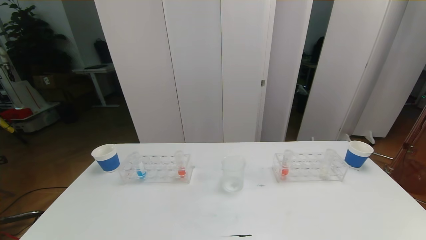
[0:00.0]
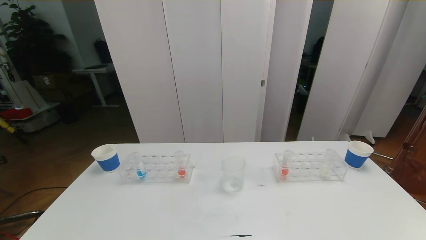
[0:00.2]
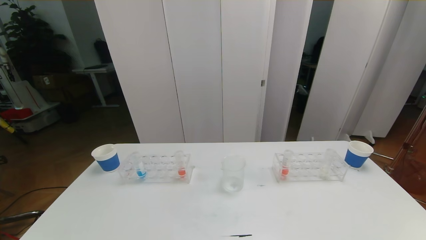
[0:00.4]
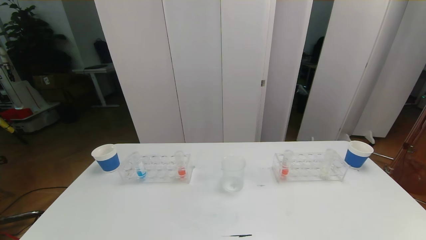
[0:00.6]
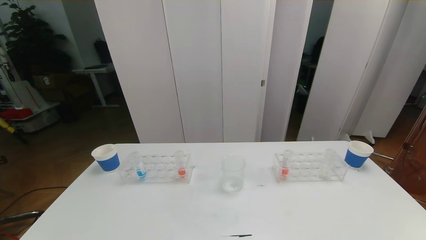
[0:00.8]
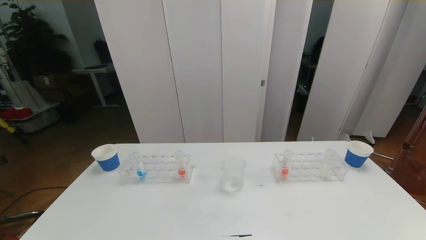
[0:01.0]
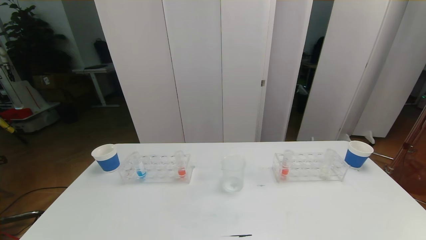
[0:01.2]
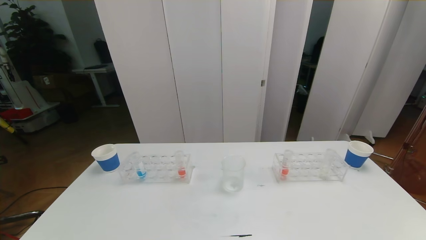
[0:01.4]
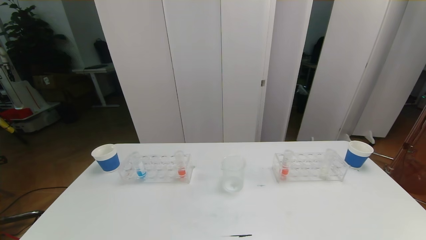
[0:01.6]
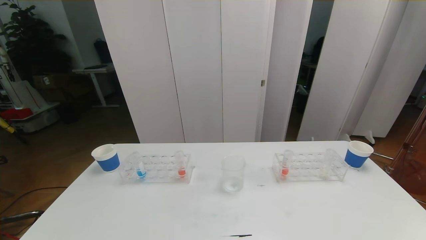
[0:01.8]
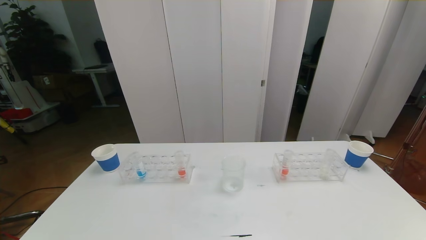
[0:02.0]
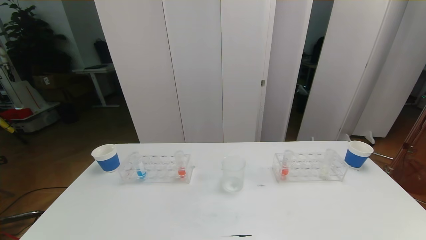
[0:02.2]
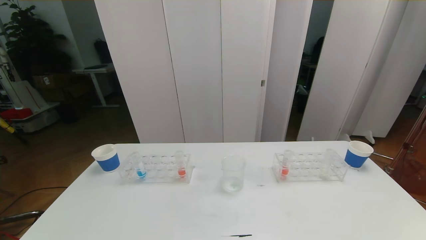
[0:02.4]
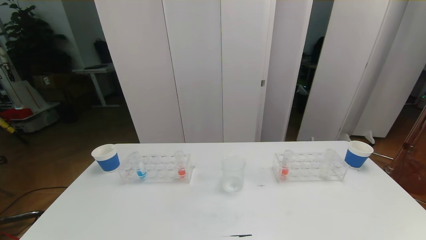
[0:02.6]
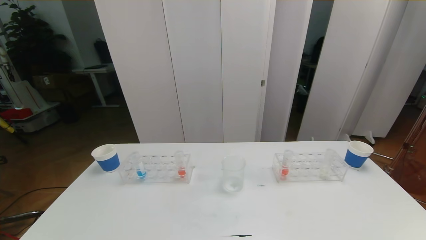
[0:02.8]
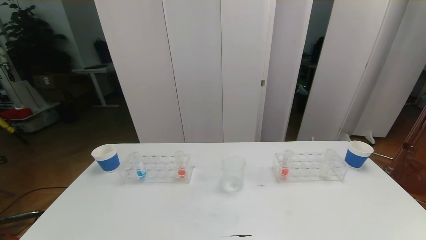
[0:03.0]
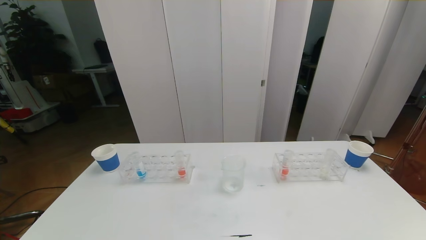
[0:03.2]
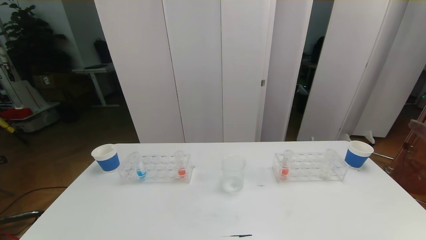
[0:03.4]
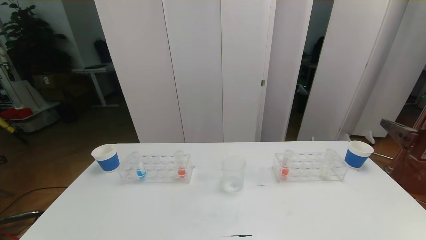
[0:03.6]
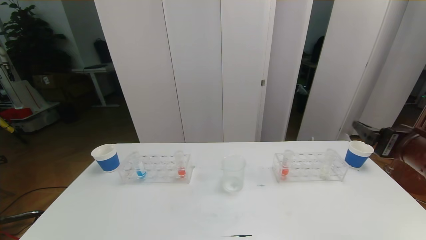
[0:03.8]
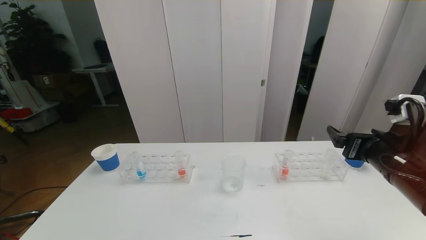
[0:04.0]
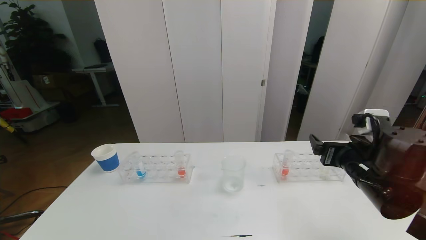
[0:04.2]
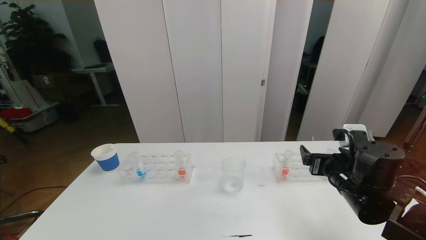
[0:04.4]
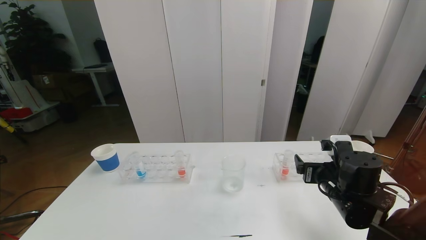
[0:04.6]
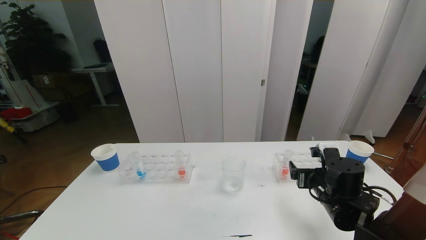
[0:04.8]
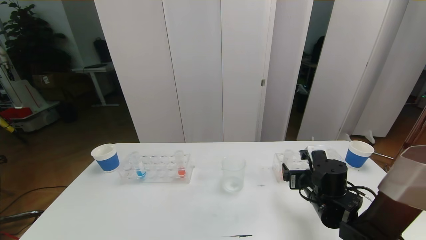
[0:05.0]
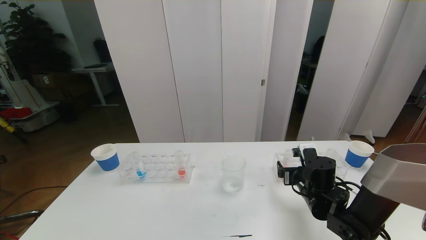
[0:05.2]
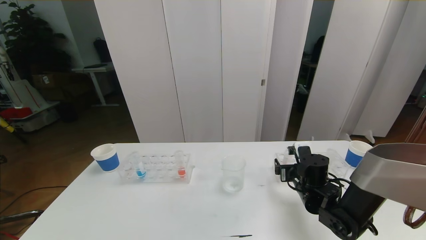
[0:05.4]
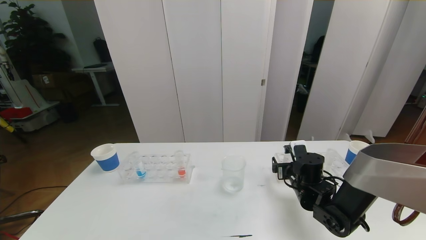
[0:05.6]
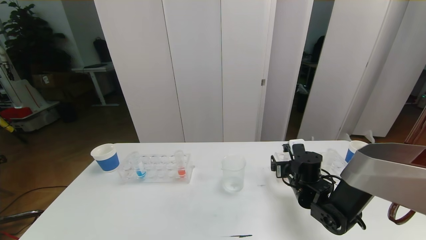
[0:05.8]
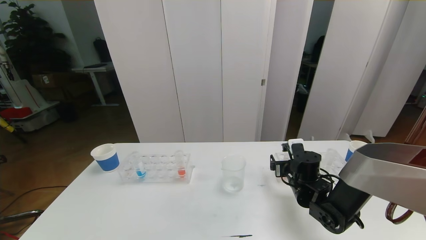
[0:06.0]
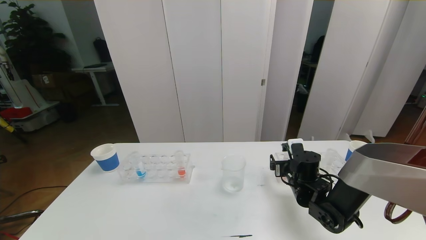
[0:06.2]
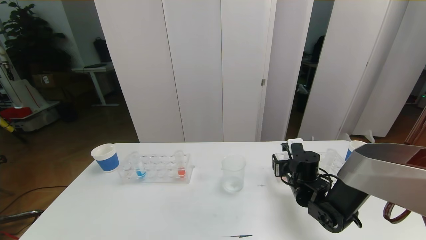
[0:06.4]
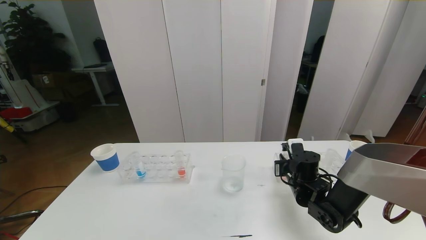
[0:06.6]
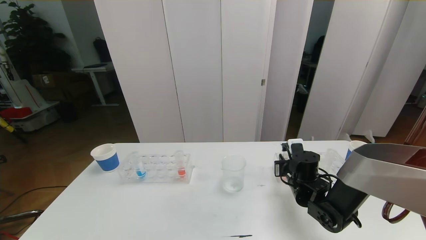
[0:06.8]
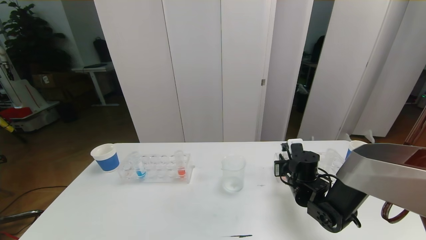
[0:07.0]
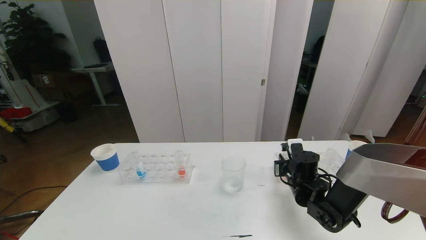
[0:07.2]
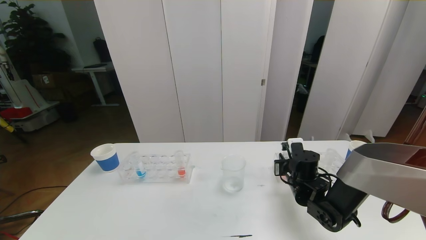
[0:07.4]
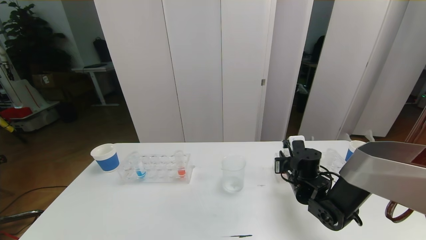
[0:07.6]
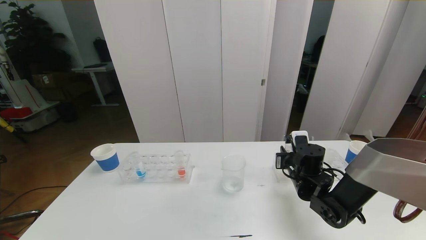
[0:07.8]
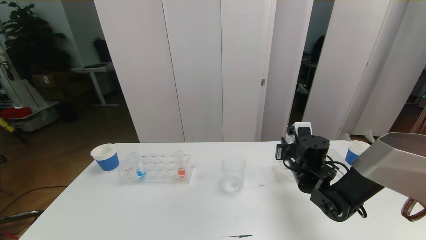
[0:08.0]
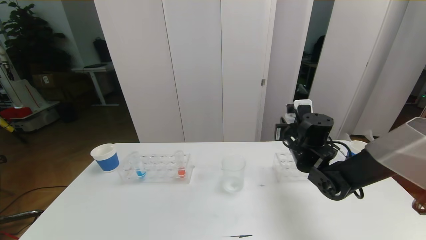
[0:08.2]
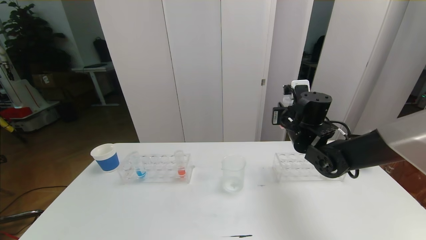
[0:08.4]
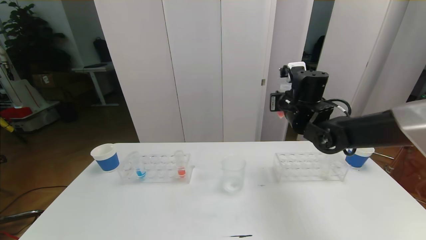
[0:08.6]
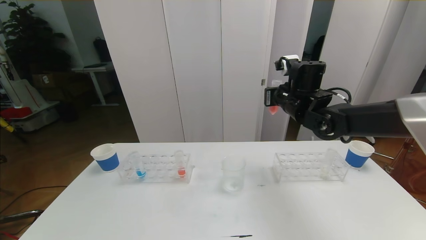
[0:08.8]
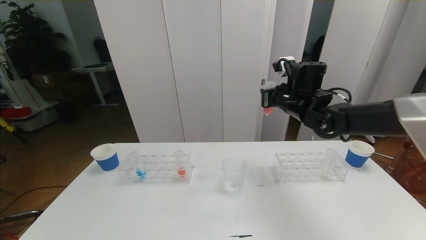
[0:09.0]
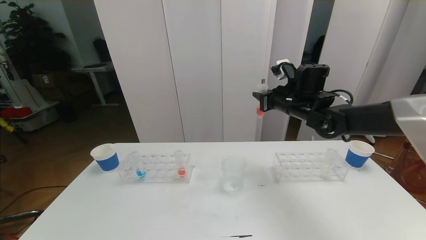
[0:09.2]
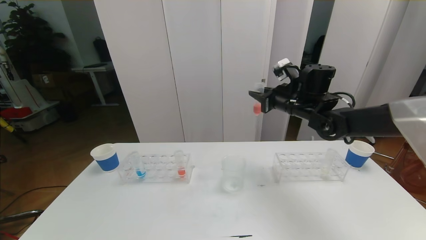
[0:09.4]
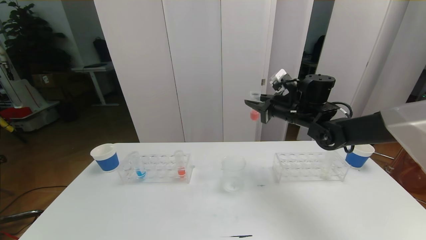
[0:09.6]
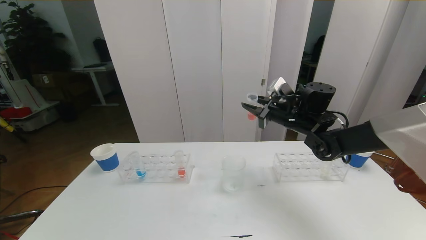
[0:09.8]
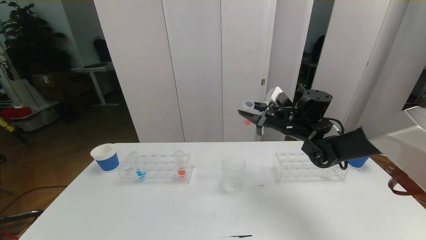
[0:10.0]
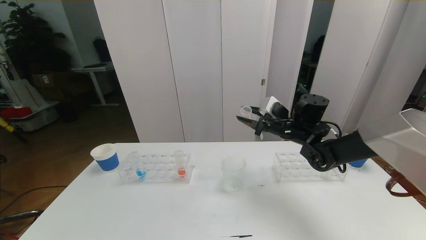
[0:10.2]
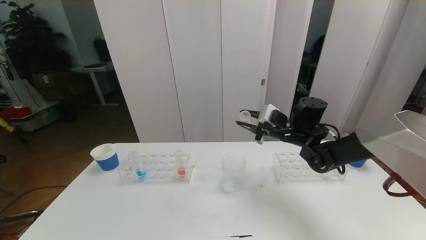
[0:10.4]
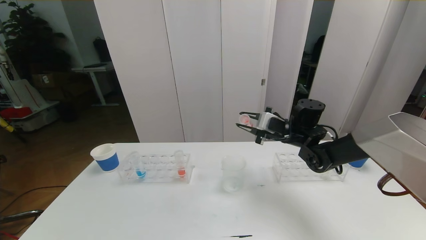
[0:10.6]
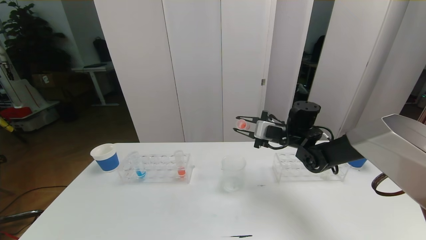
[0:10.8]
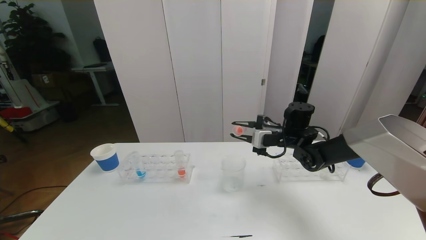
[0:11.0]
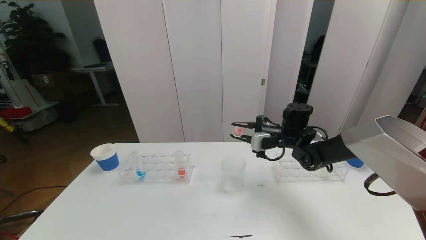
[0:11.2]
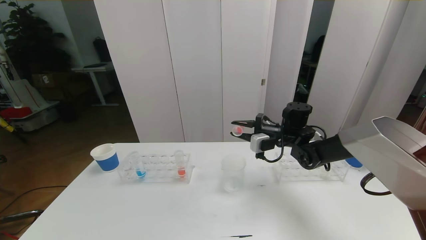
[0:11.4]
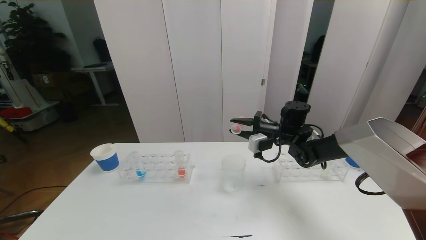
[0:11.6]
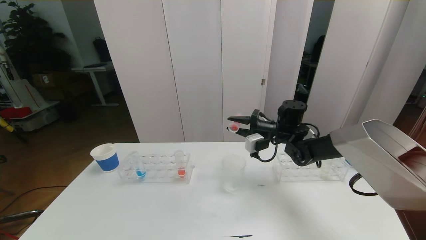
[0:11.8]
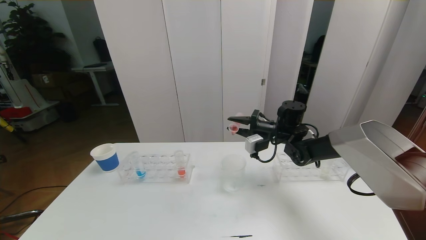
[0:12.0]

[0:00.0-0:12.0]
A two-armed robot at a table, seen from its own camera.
Task of the whole recording: pick up the test tube with red pigment the test tube with blue pigment and the test tube with white pigment by grippers and pour them into the beaker.
0:00.0 to 0:01.6: The two grippers keep their place.
0:03.0 to 0:04.4: The right gripper shifts roughly 30 cm forward, downward and to the left.
0:04.4 to 0:06.0: The right gripper goes about 15 cm downward and forward.
0:06.0 to 0:07.6: The right gripper closes up.
0:07.6 to 0:09.0: The right gripper goes some 20 cm upward and forward.
0:09.0 to 0:10.4: The right gripper moves downward, approximately 10 cm.
0:10.4 to 0:12.0: The right gripper changes place by roughly 5 cm.

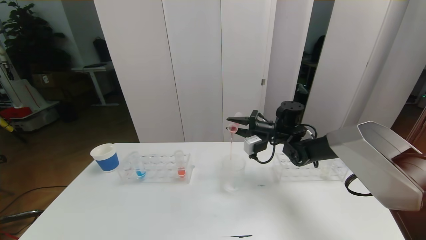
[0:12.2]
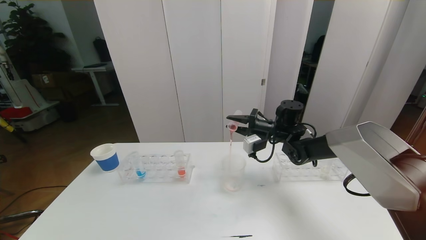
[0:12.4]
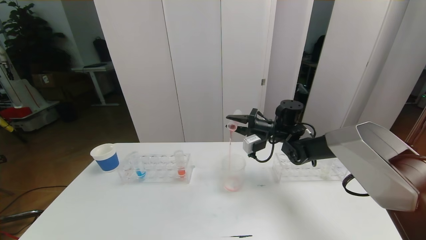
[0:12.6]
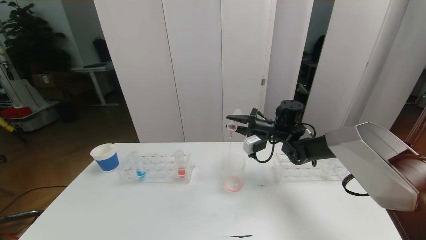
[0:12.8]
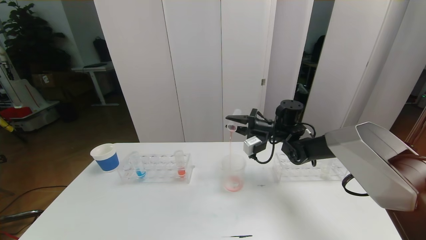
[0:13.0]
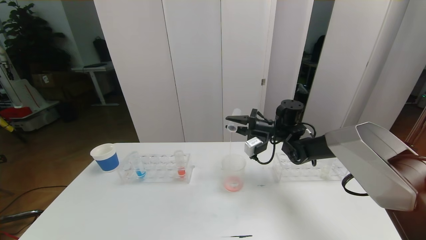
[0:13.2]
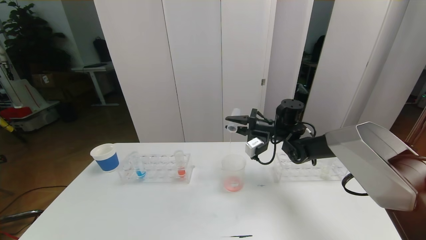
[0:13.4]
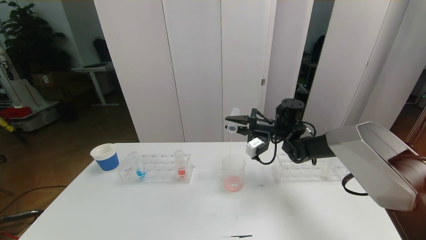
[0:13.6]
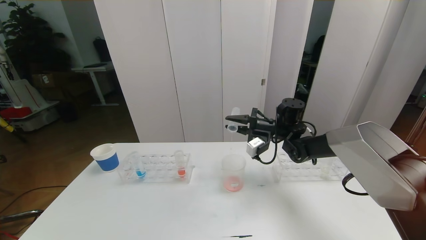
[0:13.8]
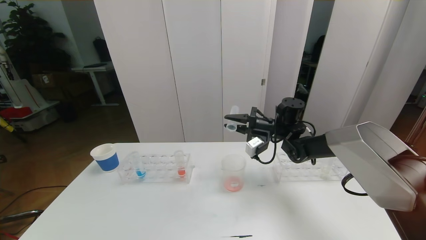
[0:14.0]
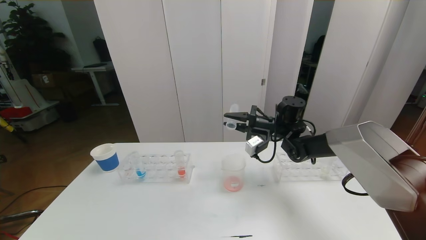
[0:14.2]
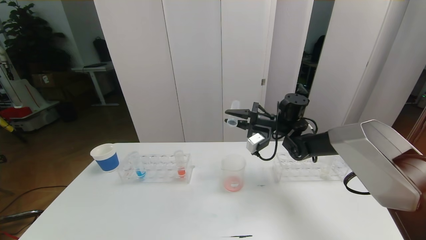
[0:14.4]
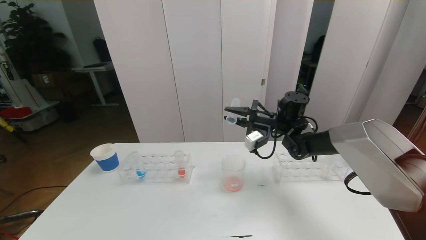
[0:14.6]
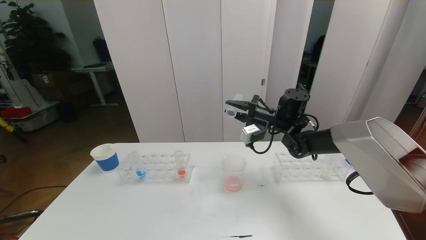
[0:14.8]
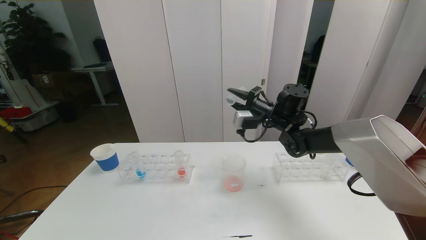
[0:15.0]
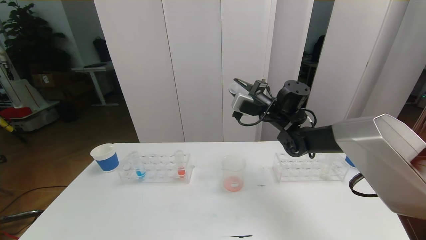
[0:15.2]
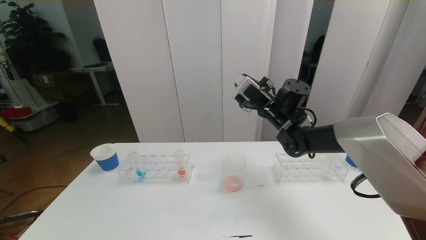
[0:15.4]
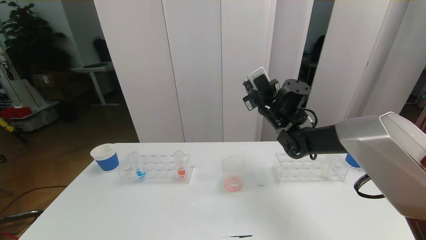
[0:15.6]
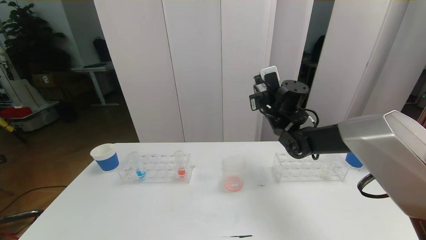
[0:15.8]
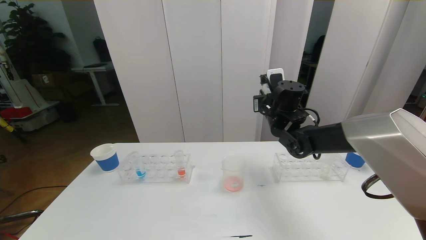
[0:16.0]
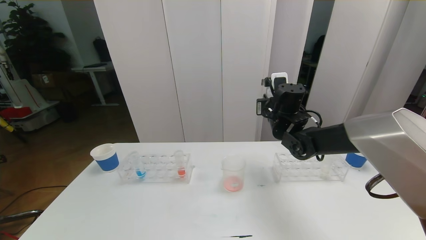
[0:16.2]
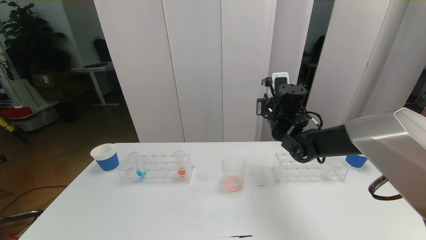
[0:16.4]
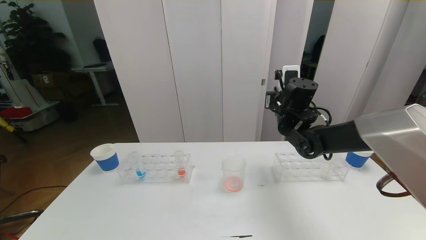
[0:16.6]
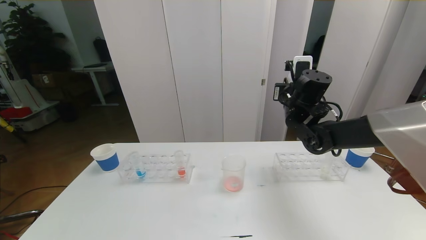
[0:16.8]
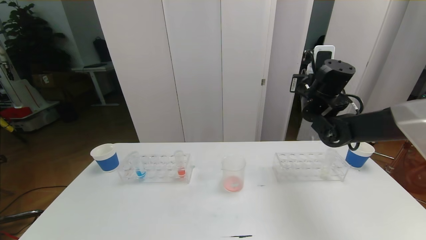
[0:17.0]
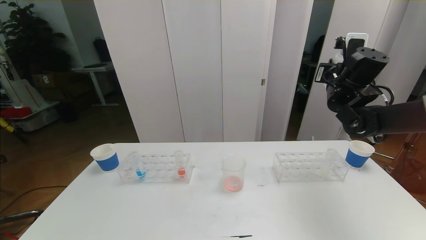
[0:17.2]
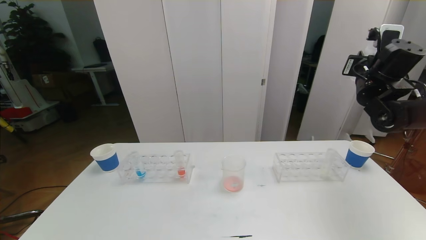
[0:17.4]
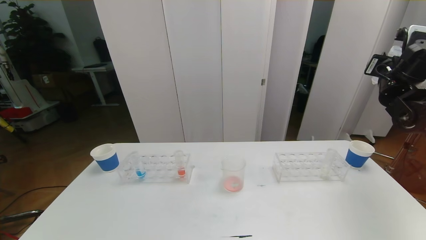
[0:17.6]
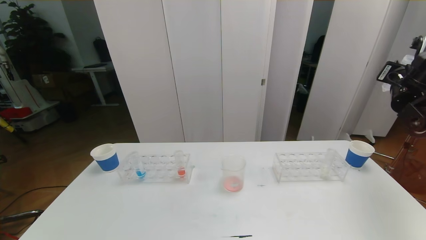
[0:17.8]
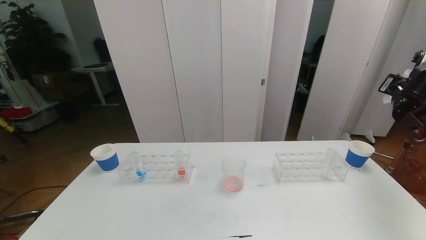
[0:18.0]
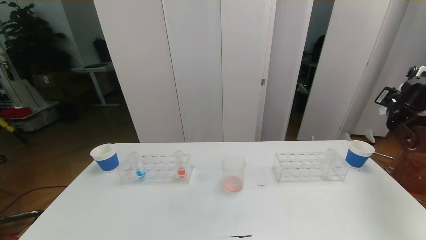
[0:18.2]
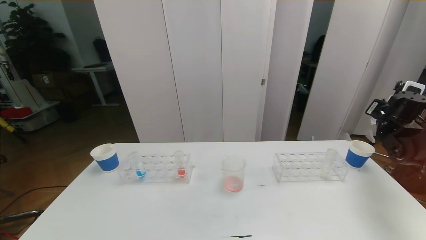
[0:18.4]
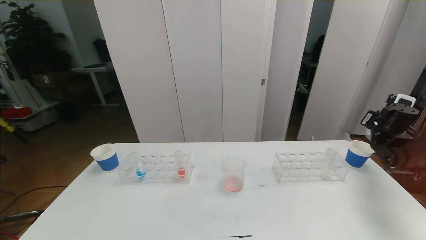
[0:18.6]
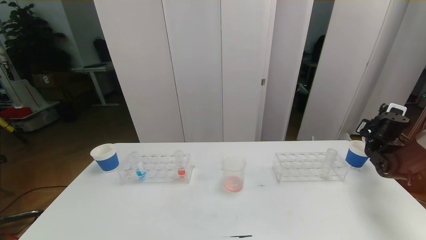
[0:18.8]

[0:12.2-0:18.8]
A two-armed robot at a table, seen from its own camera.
Task of the whole recording: pick up the test tube with red pigment the test tube with blue pigment and the test tube with white pigment by grippers and pour them into the beaker.
0:12.2 to 0:13.8: The grippers stay close to where they were, moving slightly.
0:13.8 to 0:15.4: The right gripper is displaced upward by roughly 5 cm.
0:15.4 to 0:17.2: The right gripper is displaced to the right and upward by about 15 cm.
0:17.2 to 0:18.8: The right gripper travels downward and to the right by roughly 25 cm.
